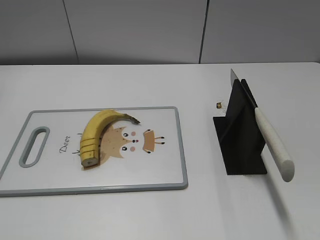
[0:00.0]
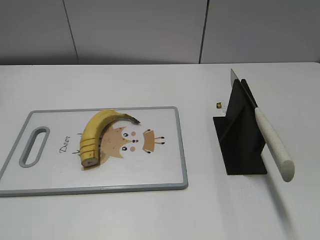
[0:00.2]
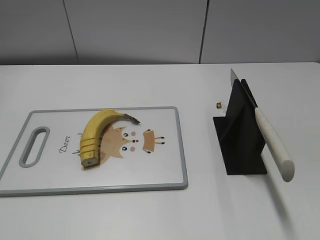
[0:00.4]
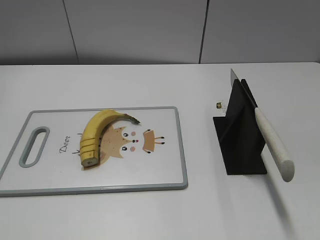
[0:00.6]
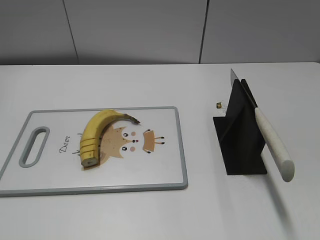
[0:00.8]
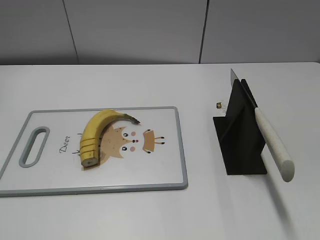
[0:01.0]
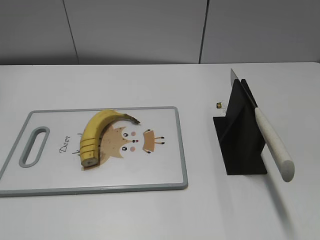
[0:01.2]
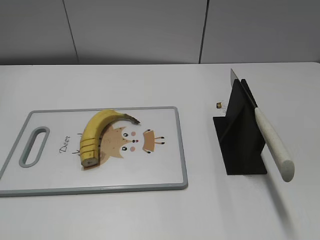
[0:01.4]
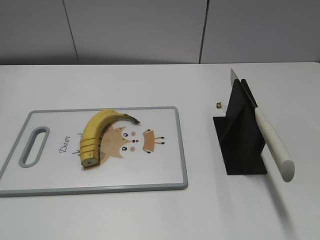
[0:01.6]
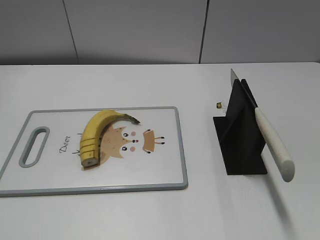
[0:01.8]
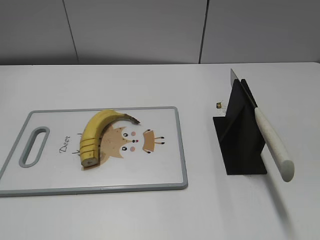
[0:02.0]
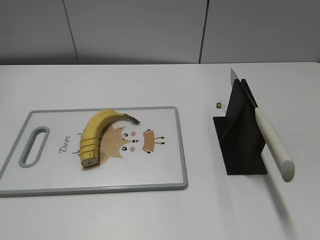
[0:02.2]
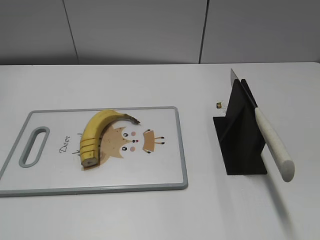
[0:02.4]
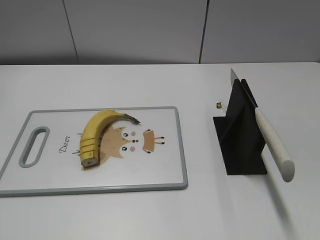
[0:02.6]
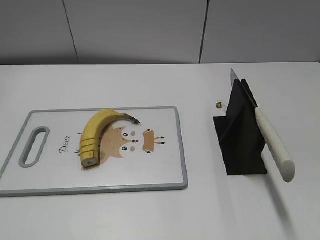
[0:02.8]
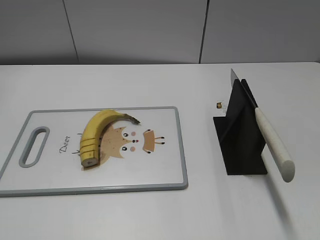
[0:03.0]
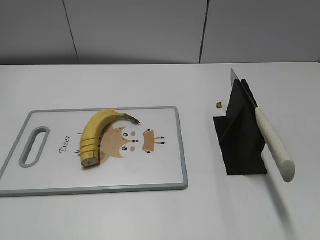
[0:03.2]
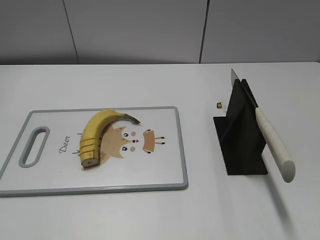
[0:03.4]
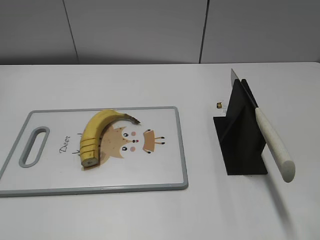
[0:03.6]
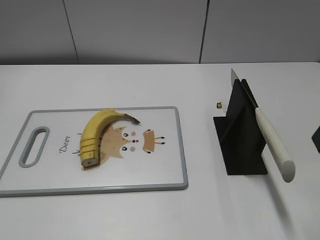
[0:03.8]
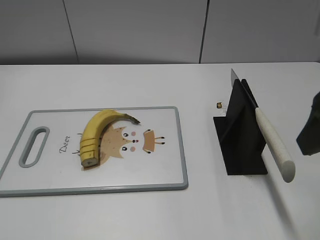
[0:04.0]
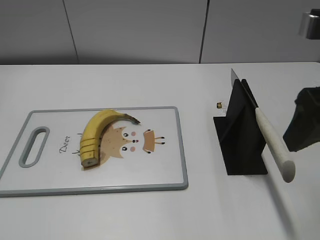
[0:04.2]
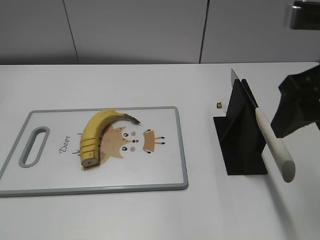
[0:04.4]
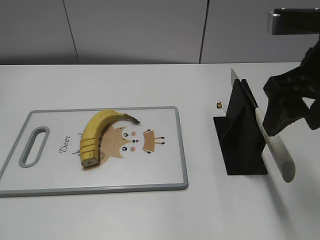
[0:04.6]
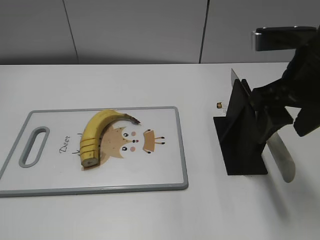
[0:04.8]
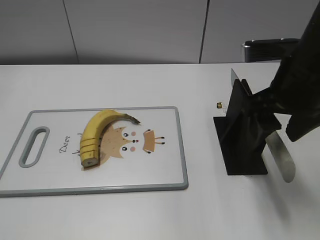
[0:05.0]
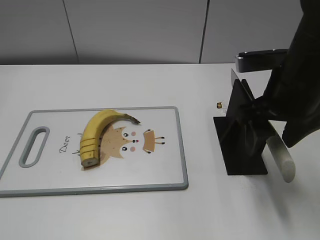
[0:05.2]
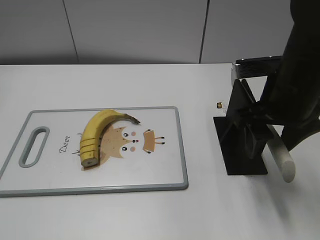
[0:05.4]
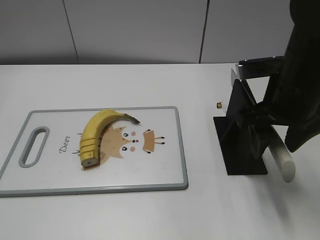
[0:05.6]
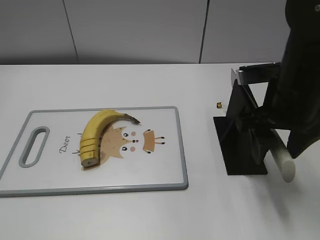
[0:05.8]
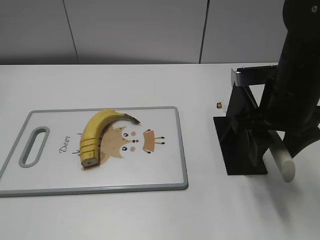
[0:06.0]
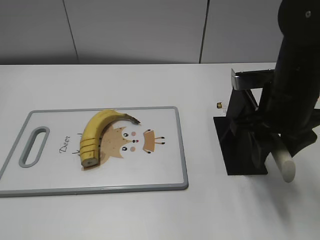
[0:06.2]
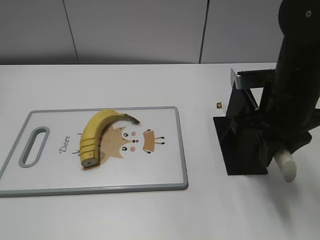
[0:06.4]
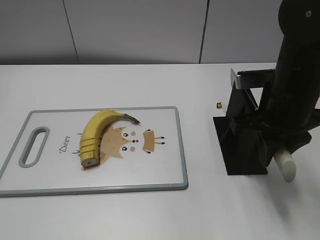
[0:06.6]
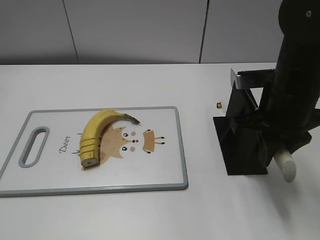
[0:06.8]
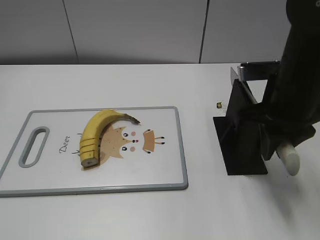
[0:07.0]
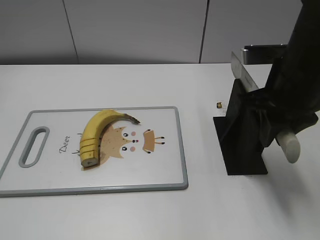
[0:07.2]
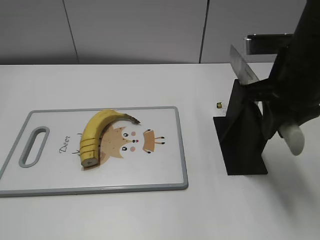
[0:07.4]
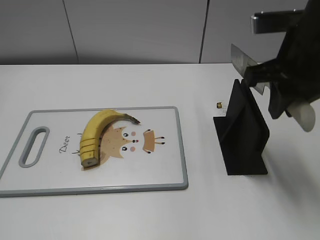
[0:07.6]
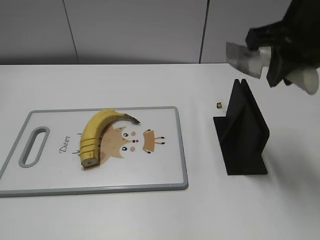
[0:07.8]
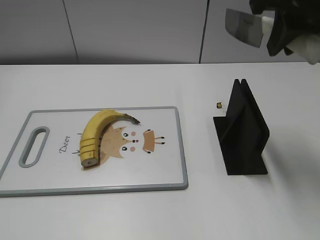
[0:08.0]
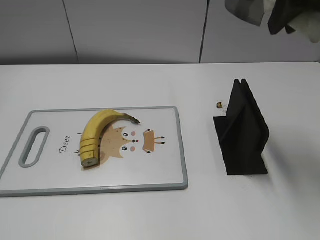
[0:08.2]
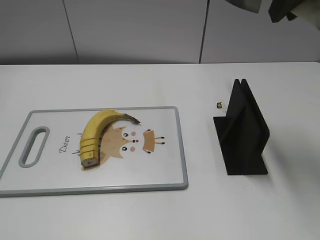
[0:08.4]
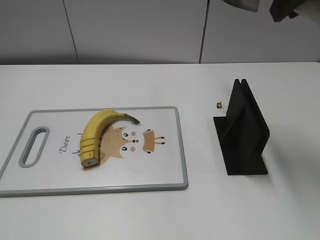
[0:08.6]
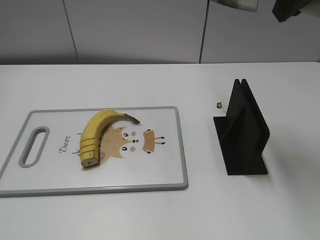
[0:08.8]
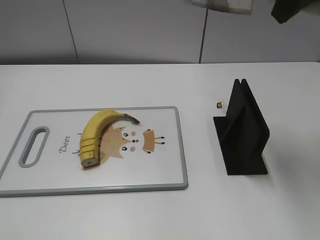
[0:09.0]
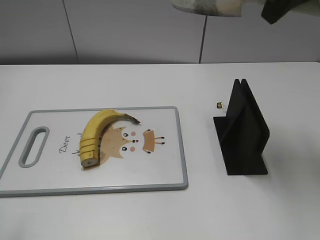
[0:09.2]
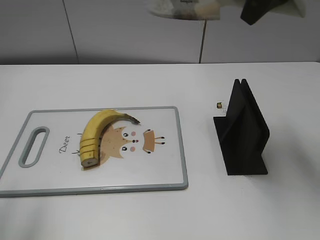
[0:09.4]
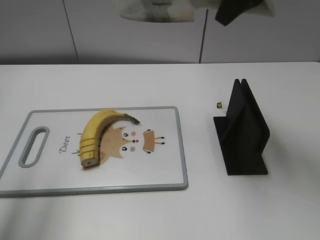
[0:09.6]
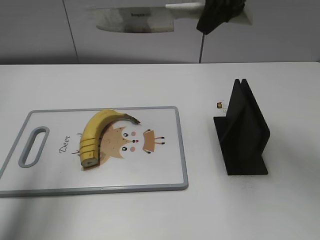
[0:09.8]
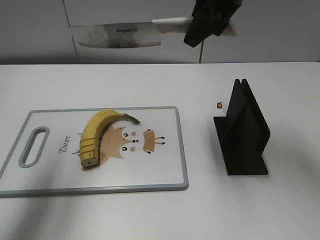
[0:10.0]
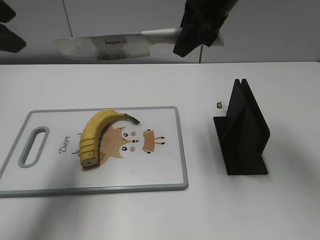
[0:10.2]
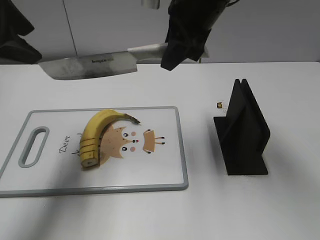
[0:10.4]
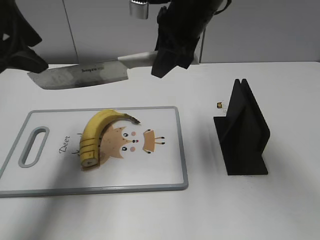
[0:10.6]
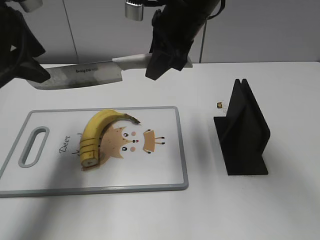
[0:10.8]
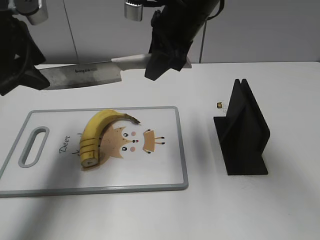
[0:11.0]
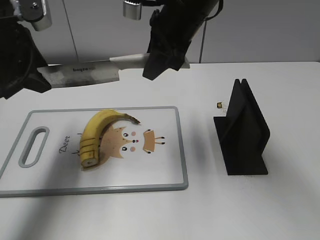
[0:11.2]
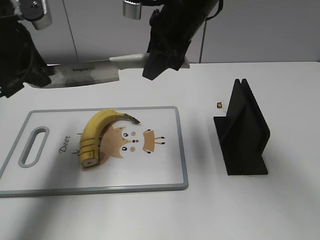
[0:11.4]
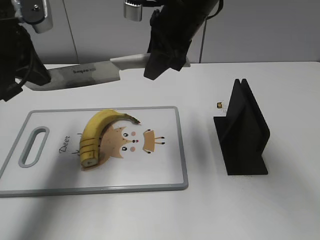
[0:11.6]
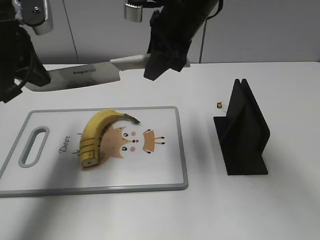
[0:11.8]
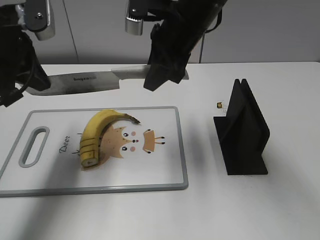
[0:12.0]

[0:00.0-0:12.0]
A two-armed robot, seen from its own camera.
Task of the whole recording: cut banana.
Step, 0:00.0 to 0:08.2: Grab the knife handle with your right hand.
0:03.0 to 0:04.4: The right gripper travels forward and to the left by approximately 15 cm.
0:04.4 to 0:06.0: The right gripper heads downward and forward, covering some 10 cm.
0:06.0 to 0:07.6: The right gripper is displaced upward by roughly 5 cm, and closes.
0:07.6 to 0:09.0: The right gripper goes approximately 10 cm upward.
0:09.0 to 0:10.4: The right gripper travels to the left, downward and forward by approximately 15 cm; the left gripper is displaced forward by about 25 cm.
0:10.4 to 0:12.0: The left gripper shifts approximately 5 cm downward, and closes up.

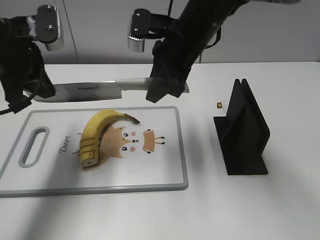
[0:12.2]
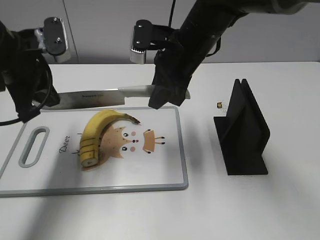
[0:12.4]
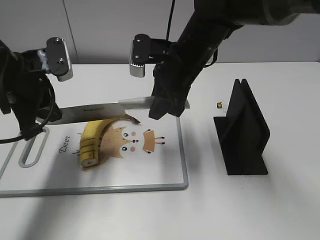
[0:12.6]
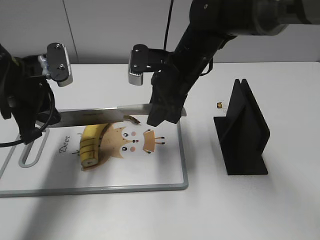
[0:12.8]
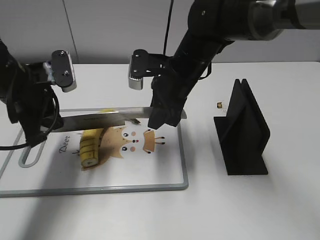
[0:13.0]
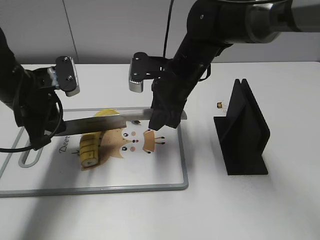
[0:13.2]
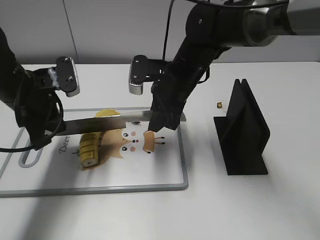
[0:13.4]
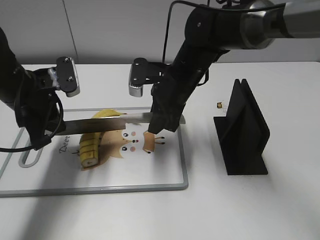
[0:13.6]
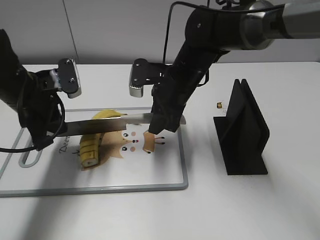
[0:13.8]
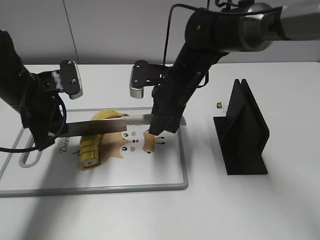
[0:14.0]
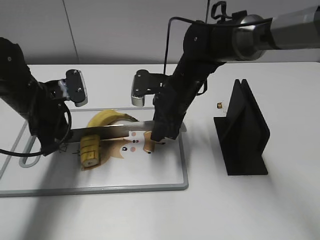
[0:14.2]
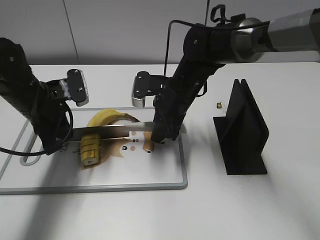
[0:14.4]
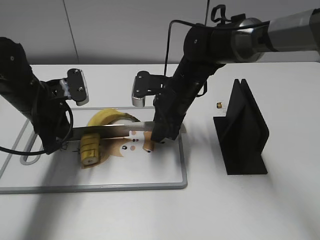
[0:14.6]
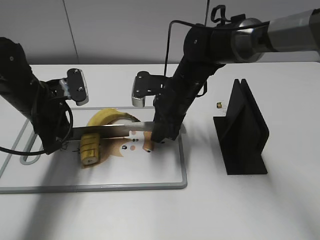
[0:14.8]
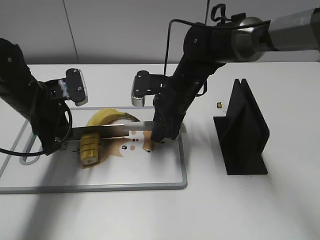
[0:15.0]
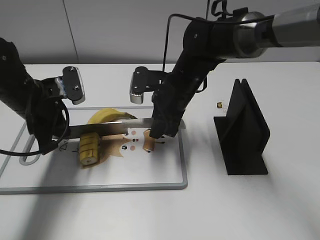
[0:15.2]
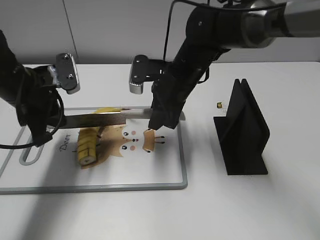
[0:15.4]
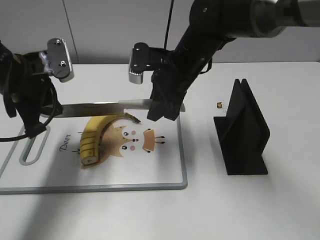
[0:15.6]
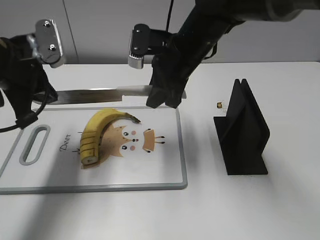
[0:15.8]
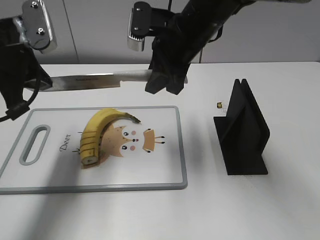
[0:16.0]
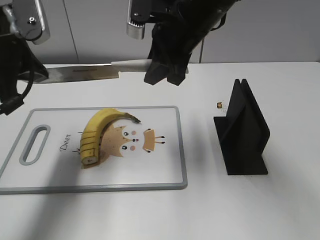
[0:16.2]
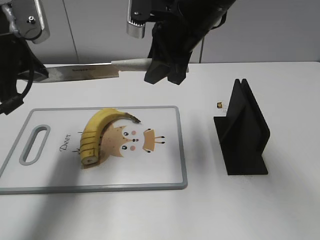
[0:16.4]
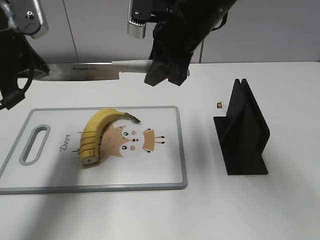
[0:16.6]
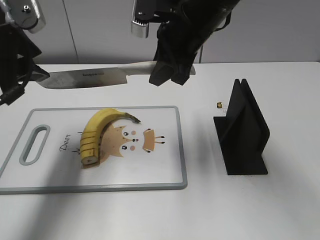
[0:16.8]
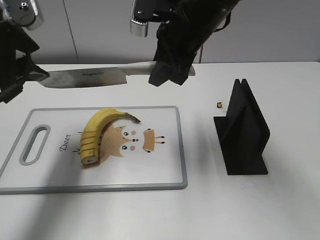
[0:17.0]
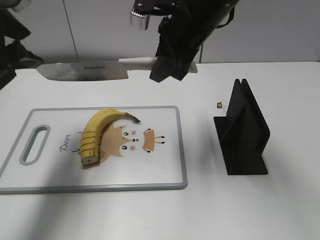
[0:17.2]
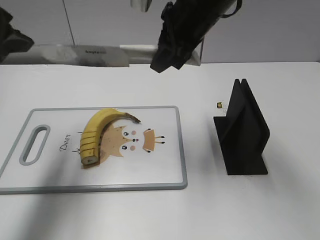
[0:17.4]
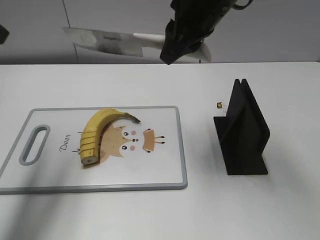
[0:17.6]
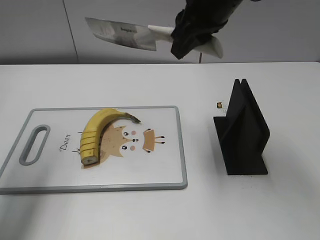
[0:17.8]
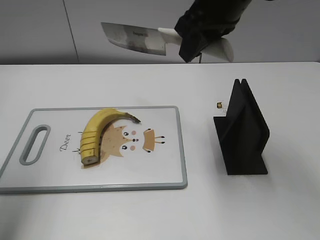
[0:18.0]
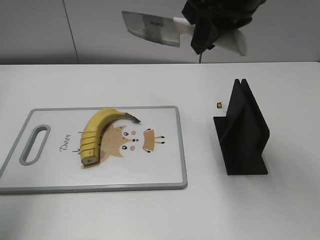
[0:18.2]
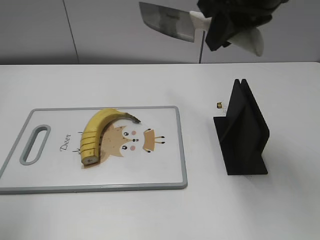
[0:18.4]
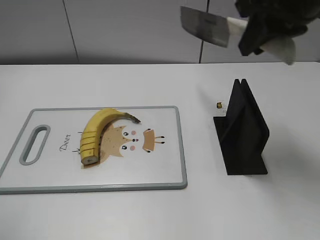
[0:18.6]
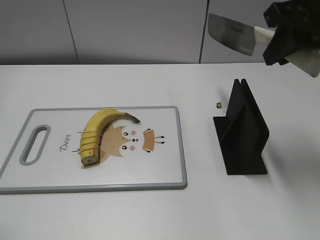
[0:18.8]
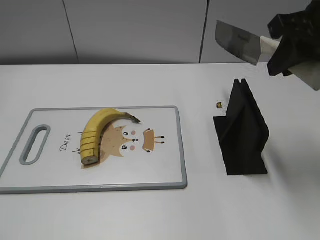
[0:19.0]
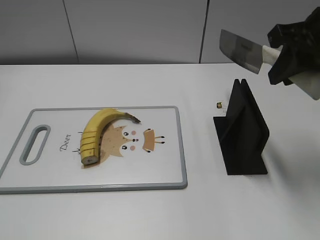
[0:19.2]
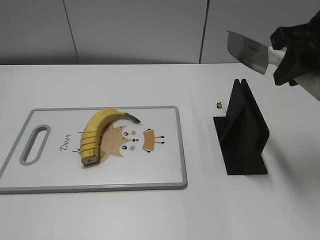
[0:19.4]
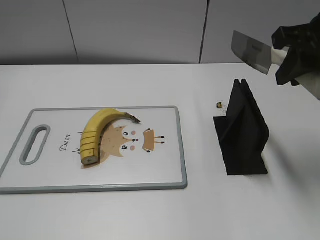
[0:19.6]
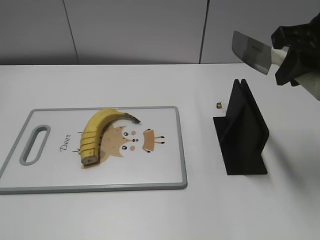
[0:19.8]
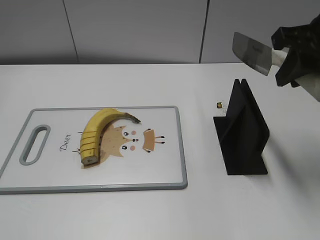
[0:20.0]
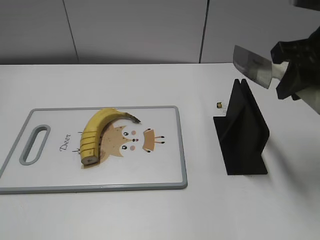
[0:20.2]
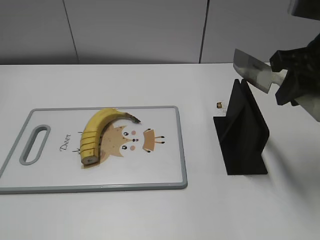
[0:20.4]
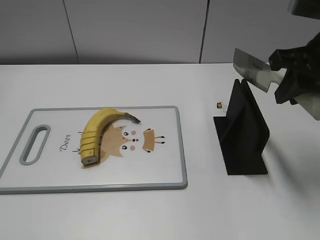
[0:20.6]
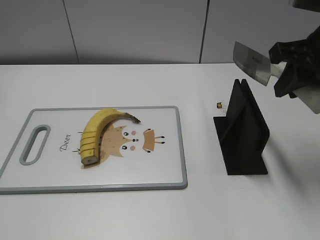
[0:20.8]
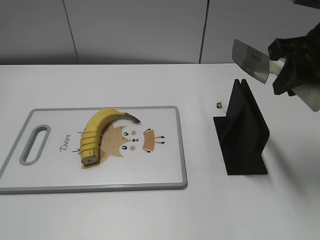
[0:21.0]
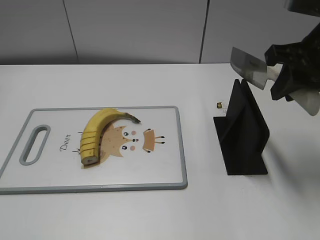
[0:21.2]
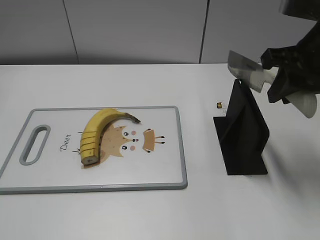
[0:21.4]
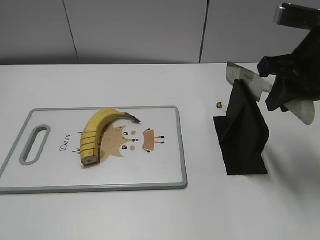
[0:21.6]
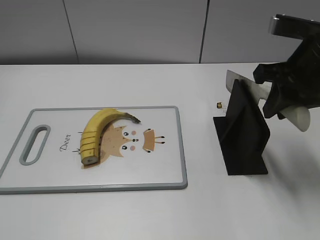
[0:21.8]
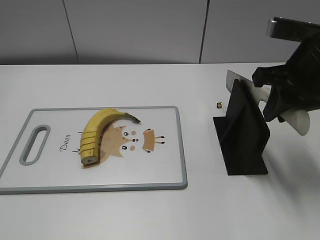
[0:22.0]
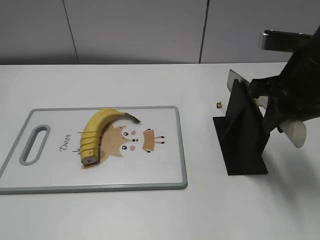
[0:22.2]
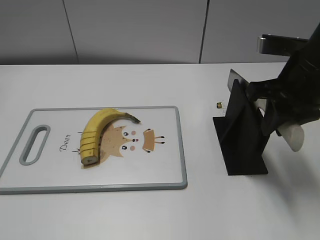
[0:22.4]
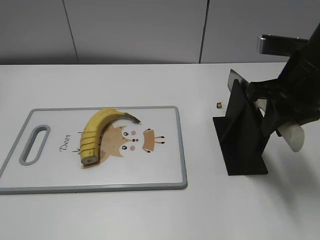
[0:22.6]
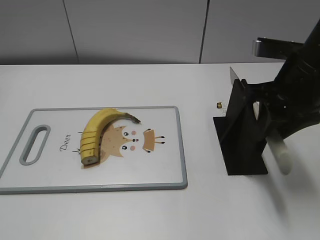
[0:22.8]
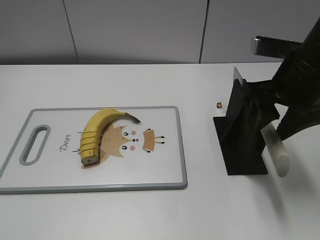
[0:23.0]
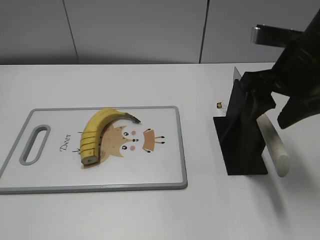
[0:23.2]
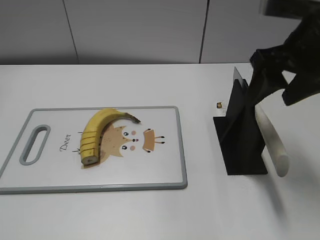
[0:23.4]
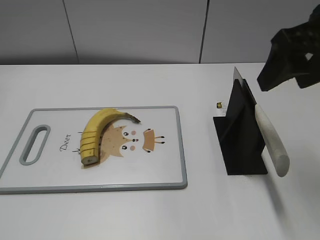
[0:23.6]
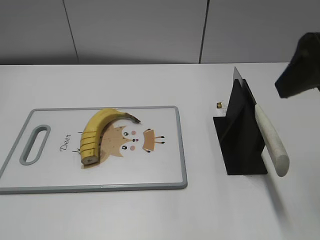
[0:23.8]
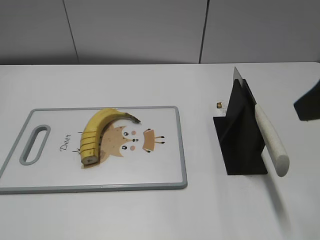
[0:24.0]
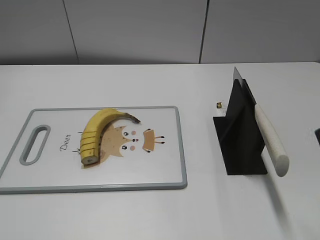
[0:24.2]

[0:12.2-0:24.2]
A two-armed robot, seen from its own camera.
Task of the whole recording: cut banana.
Step, 0:12.2 to 0:14.4: Lift the knife with your right hand.
Step, 0:14.6 to 0:18.4: Cut the banana with your right hand.
Step, 0:18.6 to 0:21.0: Lift the knife with your right hand.
0:12.2 to 0:13.8: The two grippers go some 10 cm downward.
0:13.8 to 0:15.2: There are only small adjustments of the grippers.
0:15.2 to 0:16.6: Both grippers travel together upward, some 15 cm.
0:16.6 to 0:18.2: The right gripper goes about 10 cm upward, while the left gripper shifts some 15 cm upward, to the left and backward, and opens.
0:18.2 to 0:19.8: The left gripper moves backward and downward, some 25 cm. Meanwhile the right gripper is displaced to the right by approximately 10 cm.
0:19.8 to 0:21.2: The grippers move only a little.
0:21.2 to 0:22.6: The grippers make only small movements.
0:22.6 to 0:24.2: The right gripper moves backward and upward, roughly 15 cm, and opens.
